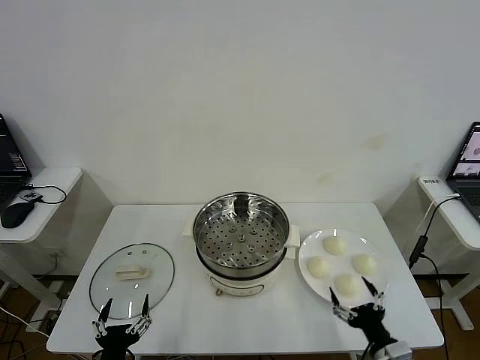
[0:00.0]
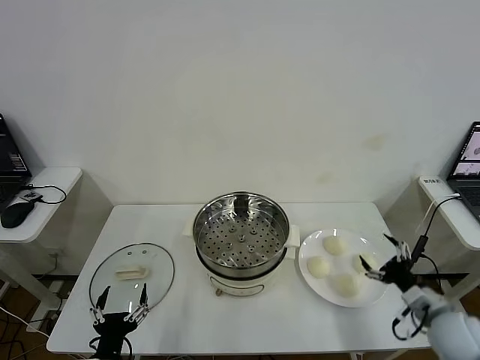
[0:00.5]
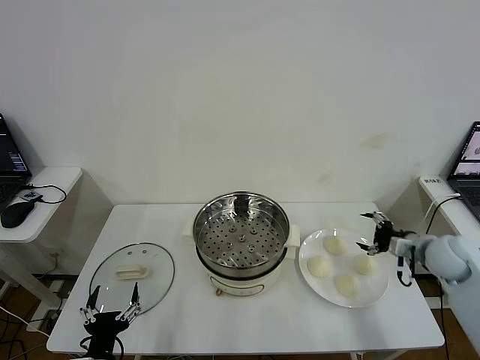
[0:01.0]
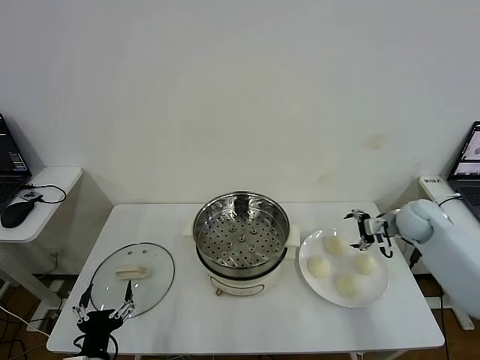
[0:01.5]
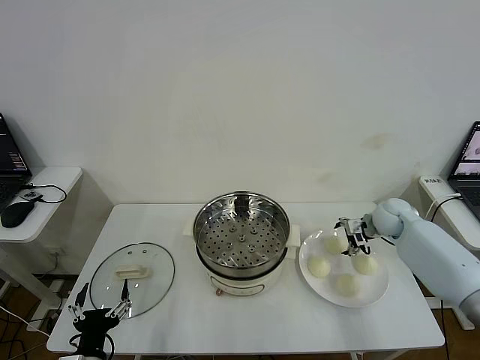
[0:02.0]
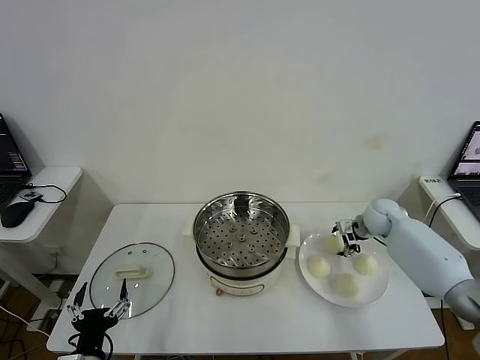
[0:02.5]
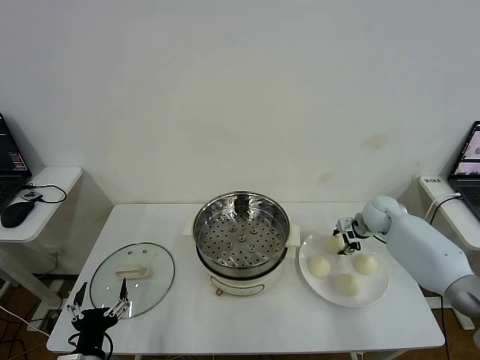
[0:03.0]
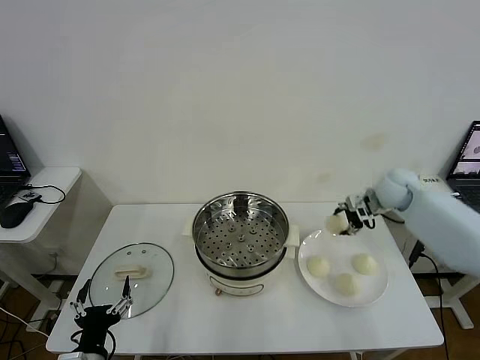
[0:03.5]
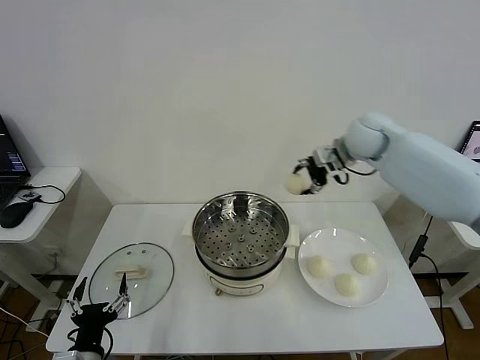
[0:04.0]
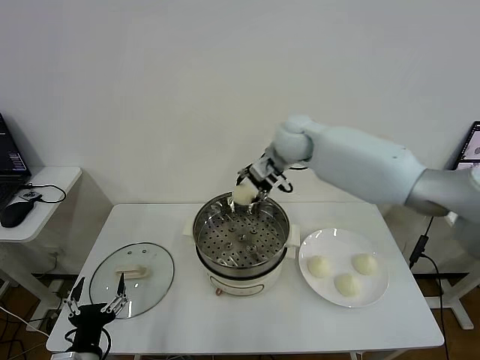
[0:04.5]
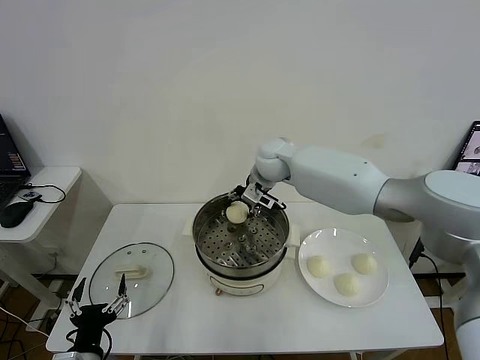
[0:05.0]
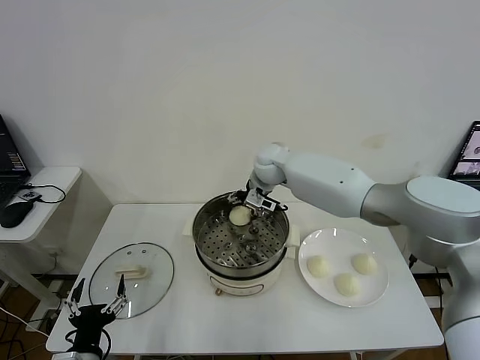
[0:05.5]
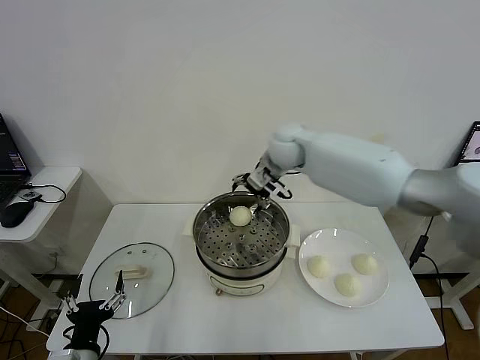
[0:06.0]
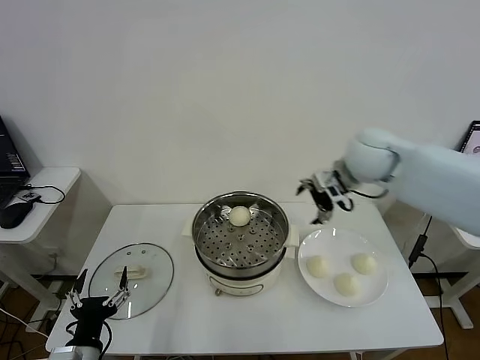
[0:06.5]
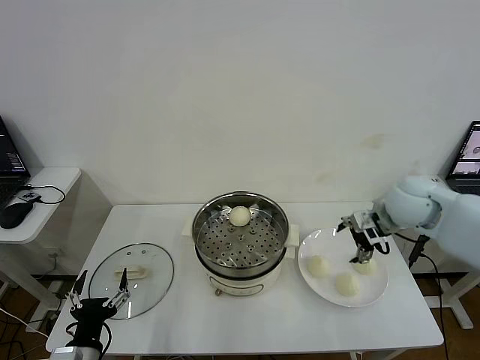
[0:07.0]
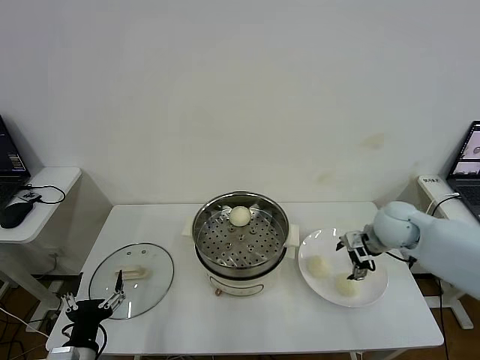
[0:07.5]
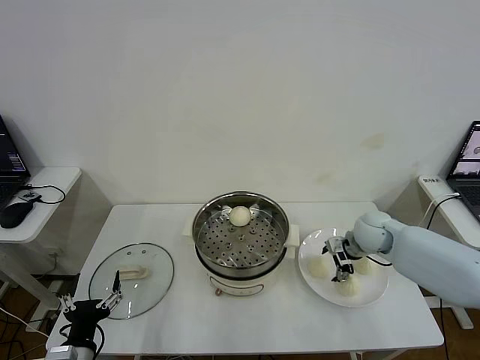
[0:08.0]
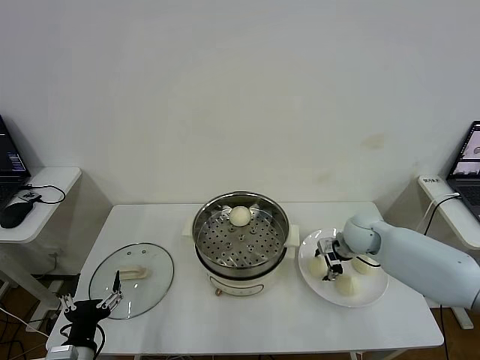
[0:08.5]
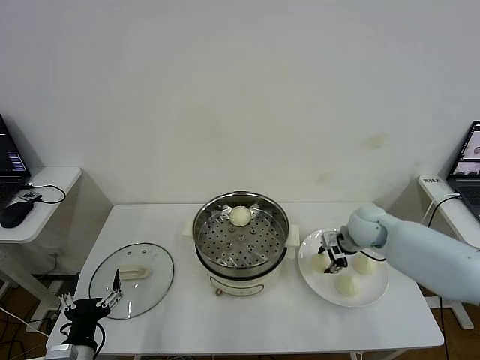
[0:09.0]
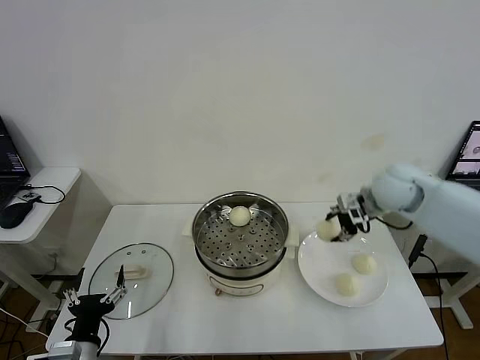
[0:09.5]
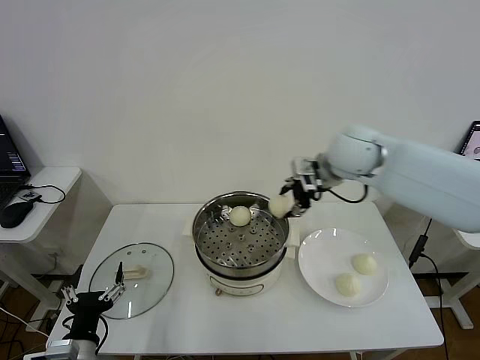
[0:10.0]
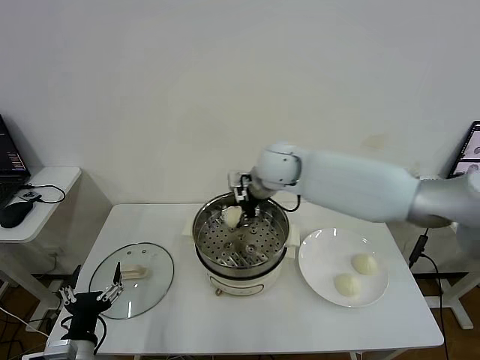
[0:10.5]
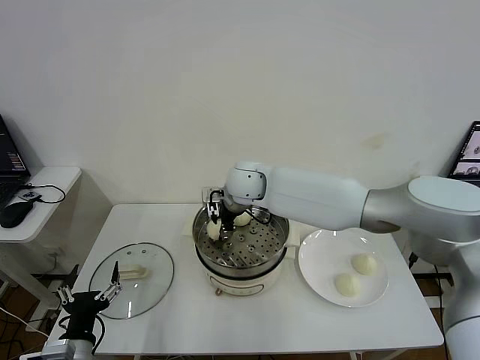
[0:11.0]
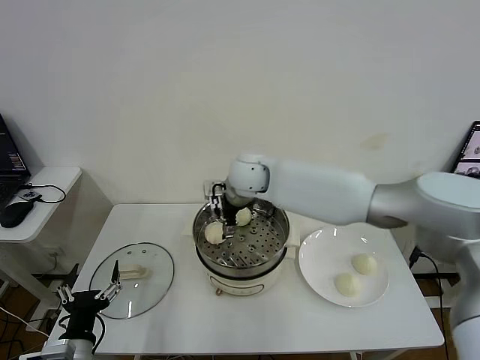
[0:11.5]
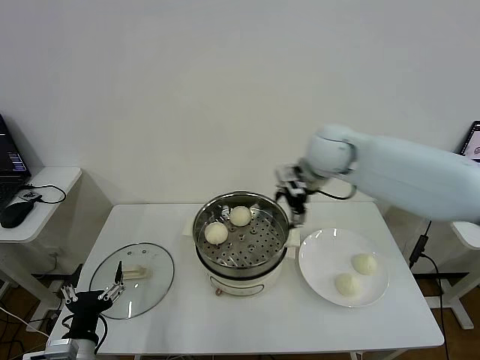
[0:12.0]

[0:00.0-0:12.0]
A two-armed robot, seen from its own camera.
Step, 0:00.0 to 0:02.5: Grasp the baozi in the plate with right gripper.
Step, 0:03.5 to 0:05.5: Place the baozi on the steamer with right gripper.
Step, 0:06.0 to 0:08.5: Grasp the baozi in the plate with right gripper.
Step, 0:09.0 to 0:11.0: Place the baozi on the steamer with right gripper.
0:02.0 to 0:04.0: The right gripper travels upward and to the left by about 30 cm, and closes up.
0:04.0 to 0:06.0: The right gripper shifts approximately 10 cm to the left, and opens up.
0:06.0 to 0:08.0: The right gripper shifts about 30 cm downward, to the right and backward.
0:08.0 to 0:10.0: The right gripper travels upward and to the left by about 25 cm, and closes up.
0:10.0 to 0:12.0: The right gripper moves approximately 15 cm to the left and comes back, and opens.

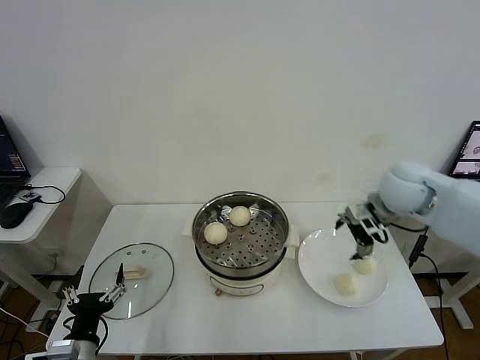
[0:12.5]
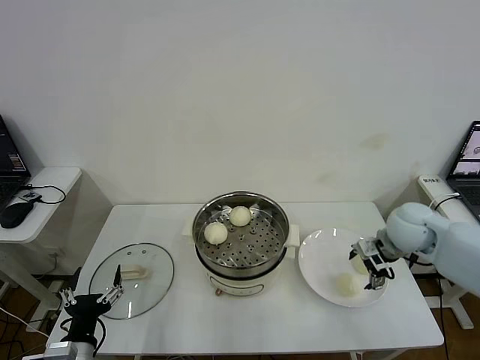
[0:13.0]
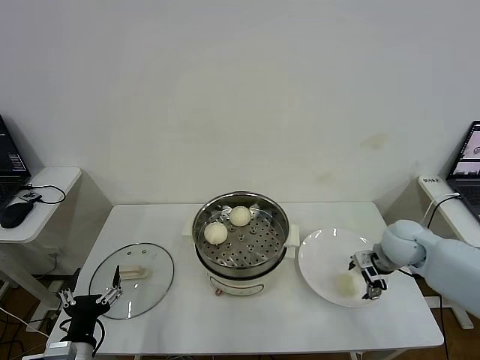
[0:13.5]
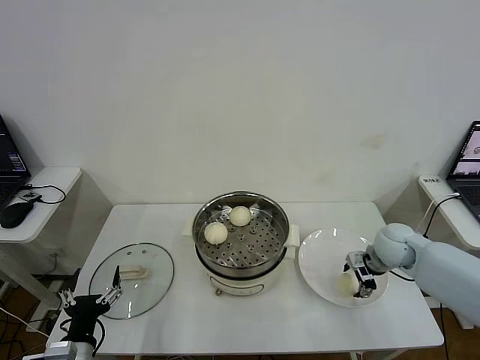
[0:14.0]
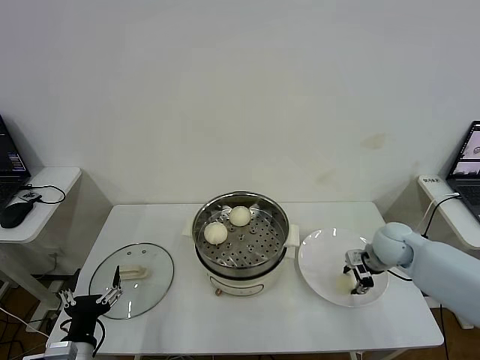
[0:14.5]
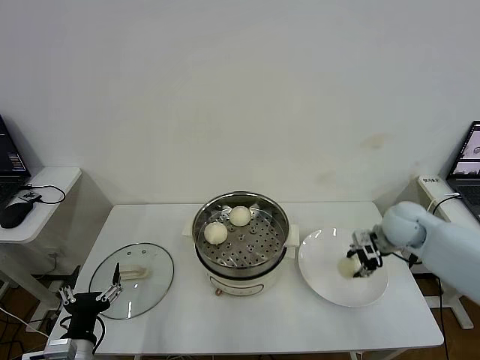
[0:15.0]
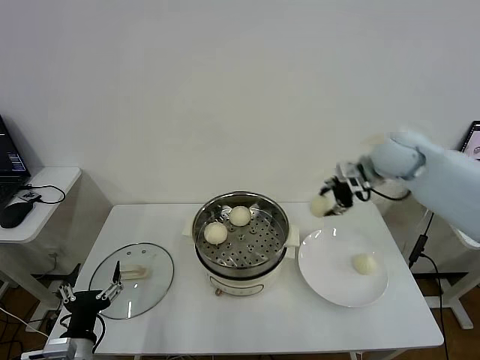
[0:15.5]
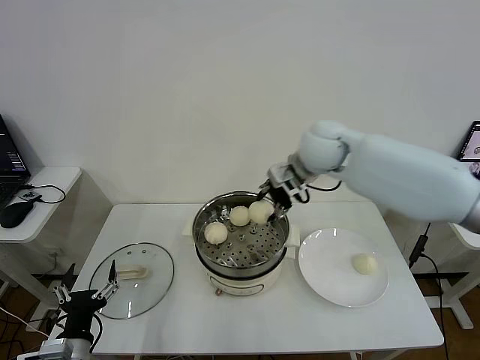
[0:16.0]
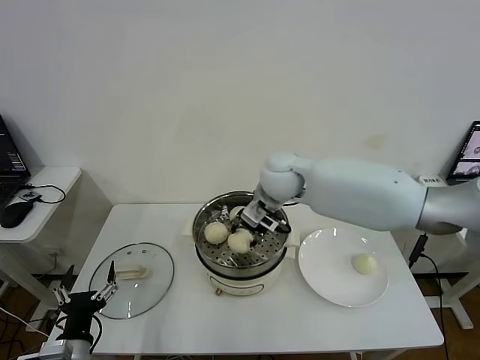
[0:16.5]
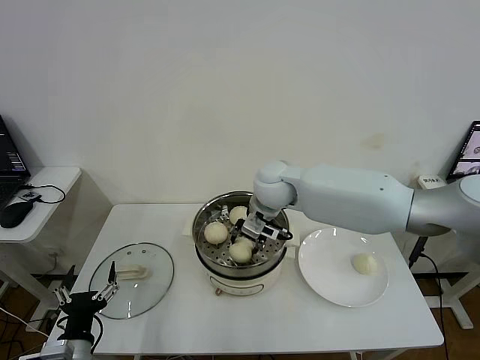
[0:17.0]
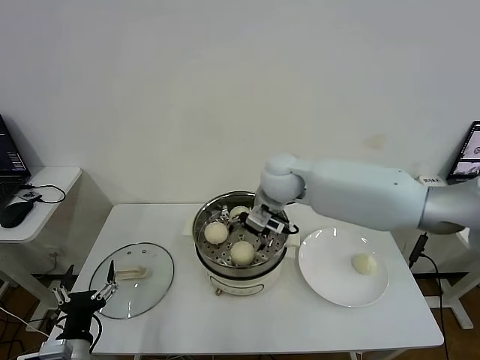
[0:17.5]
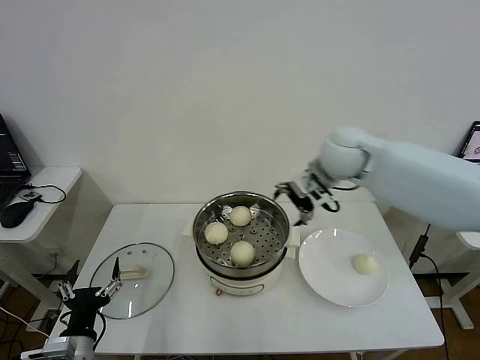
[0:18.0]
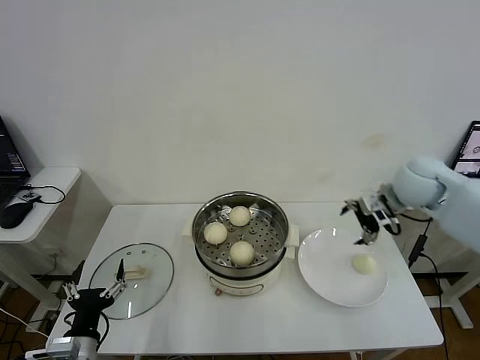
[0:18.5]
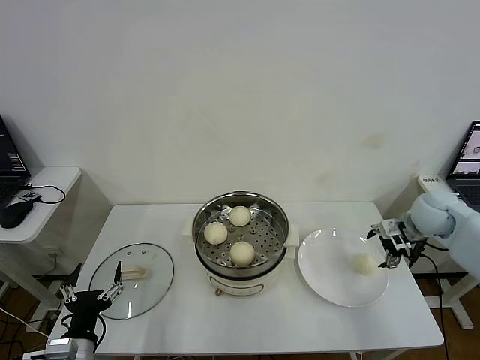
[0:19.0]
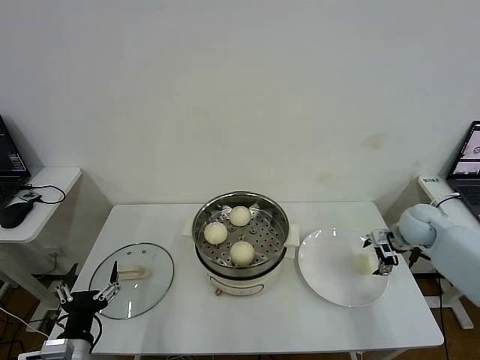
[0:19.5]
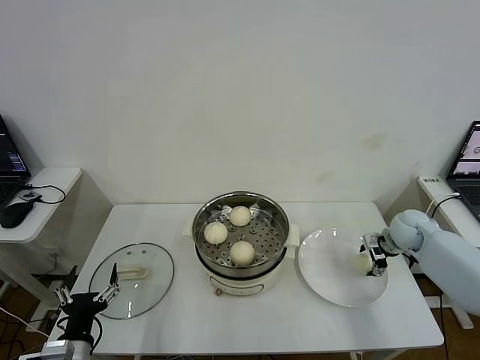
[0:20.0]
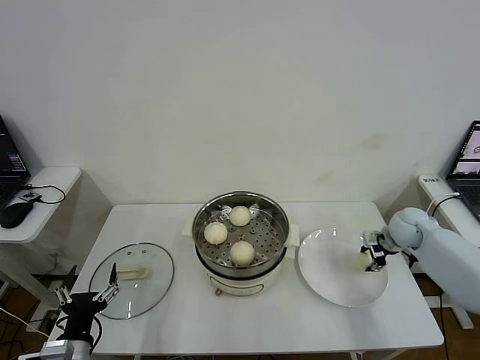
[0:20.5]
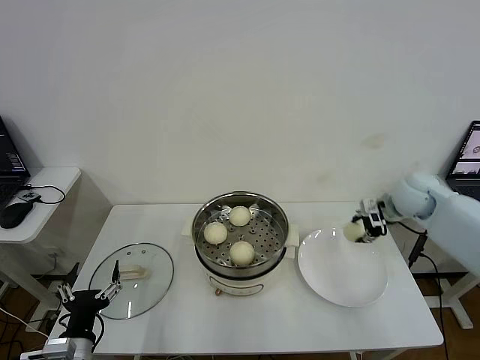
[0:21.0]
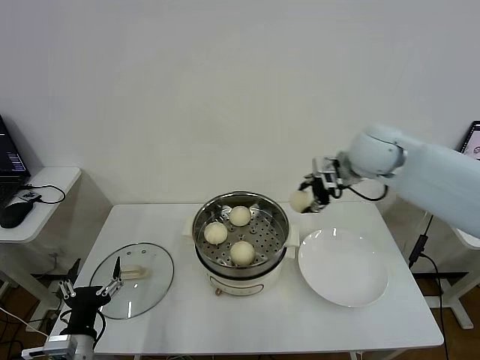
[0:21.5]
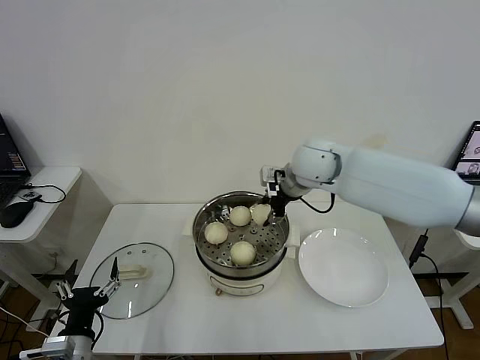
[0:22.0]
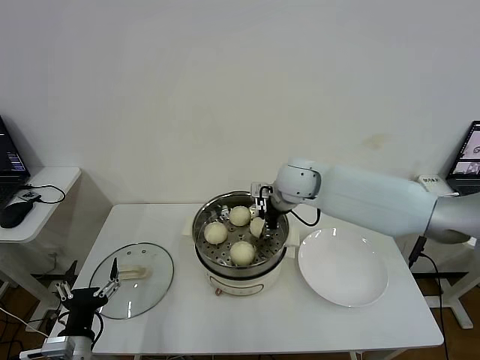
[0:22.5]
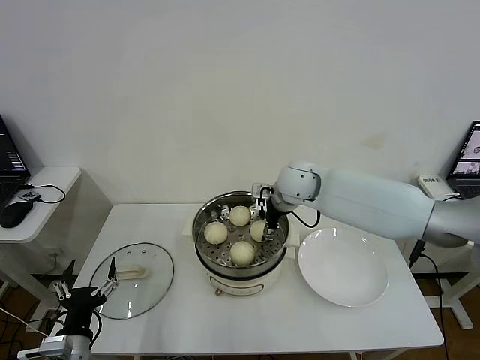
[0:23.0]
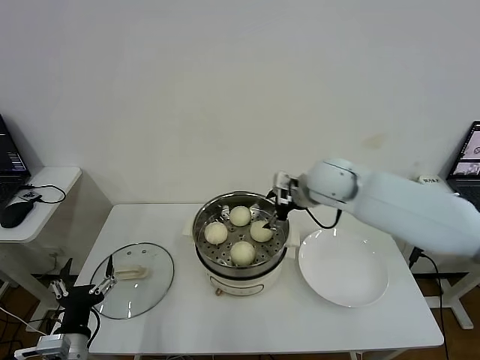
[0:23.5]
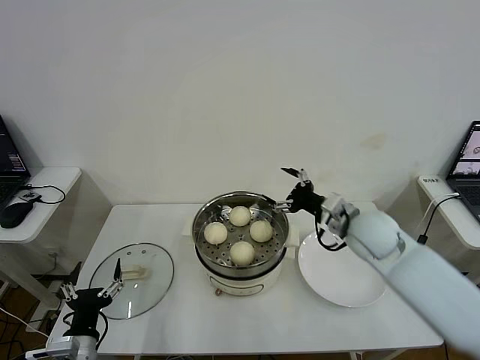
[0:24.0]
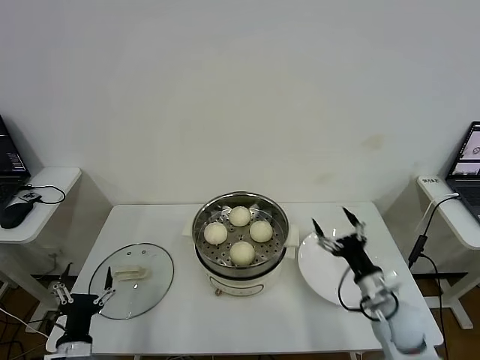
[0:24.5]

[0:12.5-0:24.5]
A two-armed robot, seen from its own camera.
Step, 0:12.5 to 0:14.5: Grasp the baozi in the plate with right gripper.
Step, 0:15.0 to 0:17.0: Place the baozi on the steamer with right gripper.
Step, 0:17.5 to 0:20.0: Grasp the baozi in the plate with right gripper.
Step, 0:20.5 to 0:23.0: Place the baozi on the steamer with right gripper.
0:12.5 to 0:14.5: The right gripper goes approximately 15 cm downward, and closes up.
0:14.5 to 0:16.5: The right gripper shifts roughly 30 cm to the left and upward.
0:16.5 to 0:18.5: The right gripper shifts roughly 30 cm to the right, and opens its fingers.
0:18.5 to 0:20.5: The right gripper goes some 15 cm downward, and closes up.
0:20.5 to 0:22.5: The right gripper is displaced to the left and upward by roughly 35 cm.
0:22.5 to 0:24.5: The right gripper is displaced backward, to the right and downward by about 35 cm, and opens its fingers.

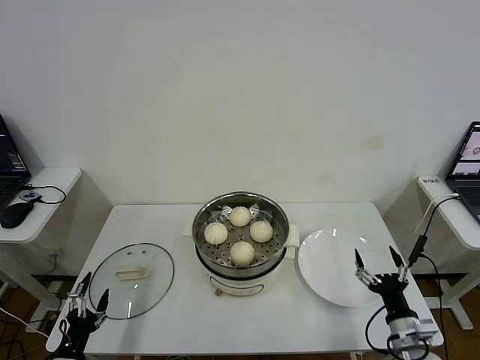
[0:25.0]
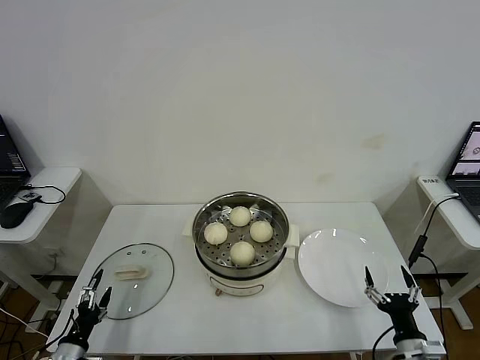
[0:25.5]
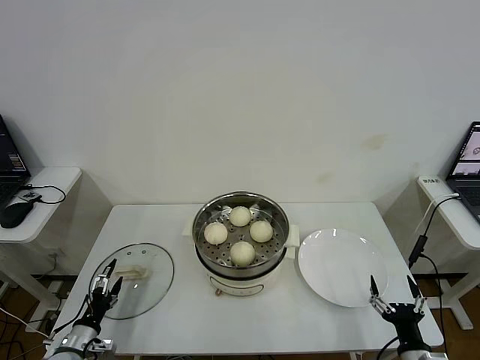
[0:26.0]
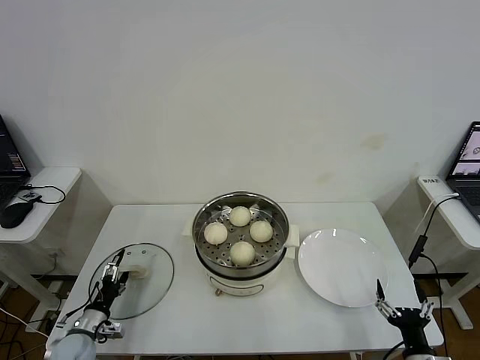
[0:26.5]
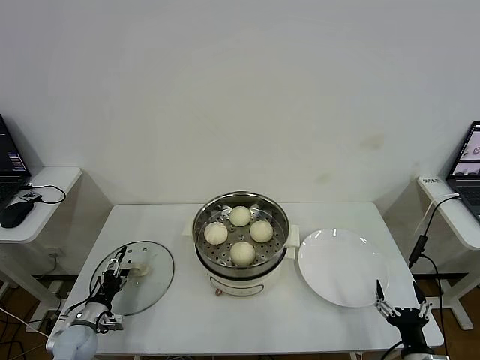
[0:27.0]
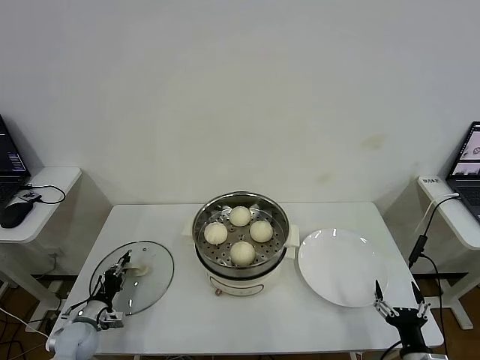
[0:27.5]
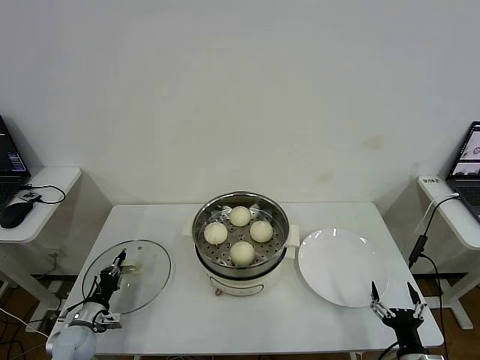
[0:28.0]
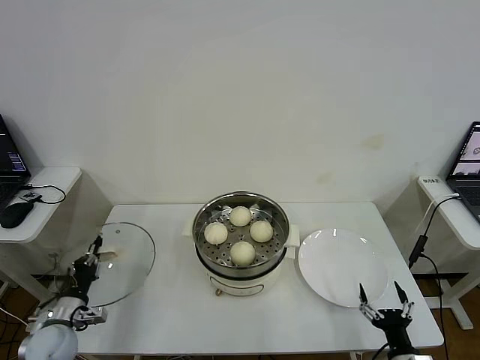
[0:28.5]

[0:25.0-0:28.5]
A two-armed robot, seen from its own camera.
Step, 0:25.0 to 0:27.5: Grasp the pot lid with left gripper.
0:25.0 to 0:27.0: The left gripper is displaced forward and downward by roughly 15 cm. The right gripper moves backward, some 5 cm.
0:27.0 to 0:28.5: The left gripper goes about 5 cm upward, and closes its fingers.
